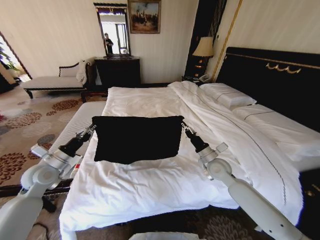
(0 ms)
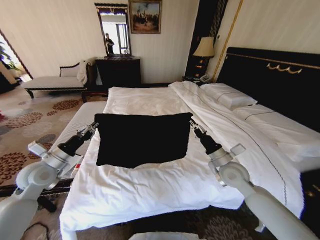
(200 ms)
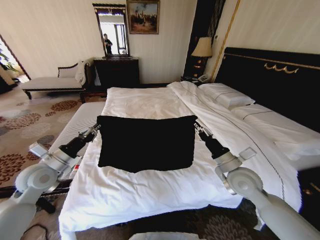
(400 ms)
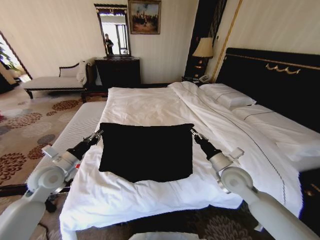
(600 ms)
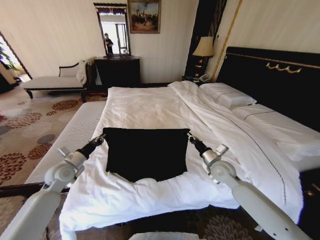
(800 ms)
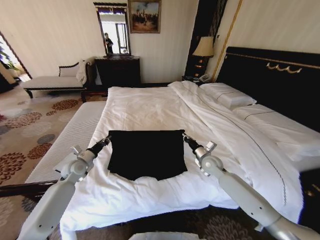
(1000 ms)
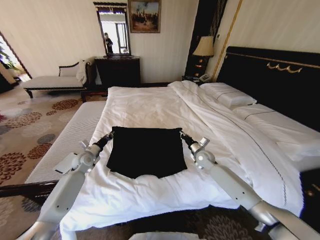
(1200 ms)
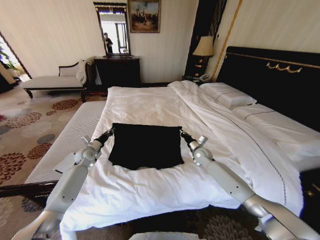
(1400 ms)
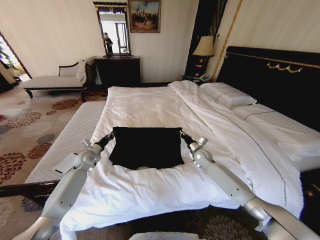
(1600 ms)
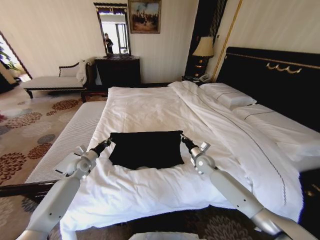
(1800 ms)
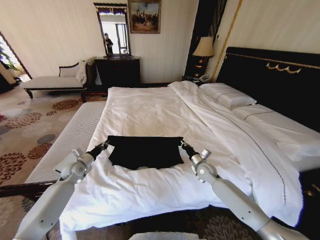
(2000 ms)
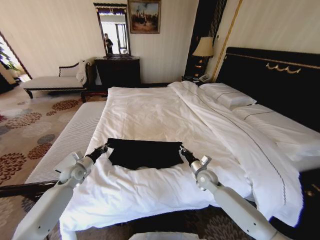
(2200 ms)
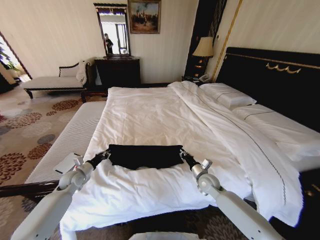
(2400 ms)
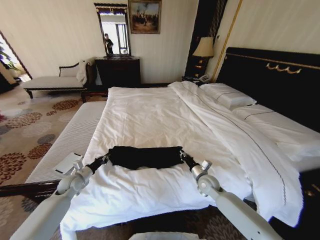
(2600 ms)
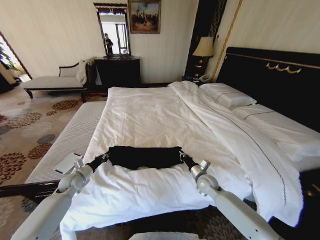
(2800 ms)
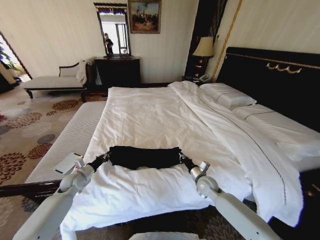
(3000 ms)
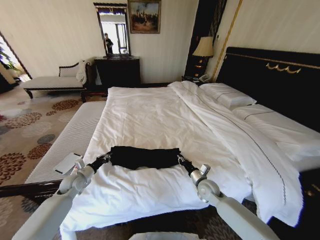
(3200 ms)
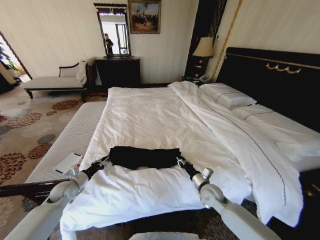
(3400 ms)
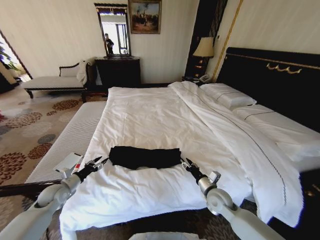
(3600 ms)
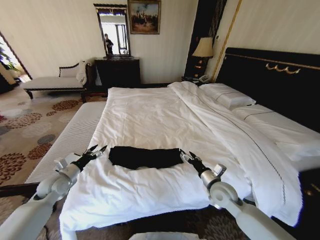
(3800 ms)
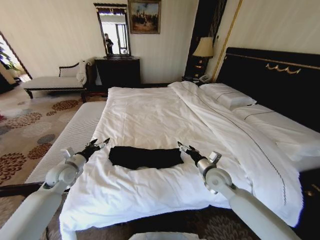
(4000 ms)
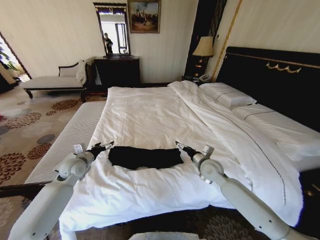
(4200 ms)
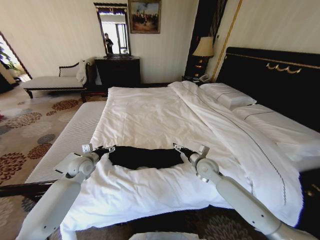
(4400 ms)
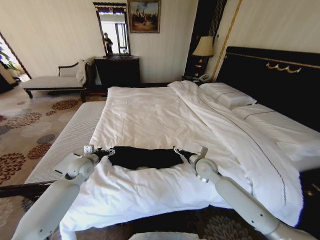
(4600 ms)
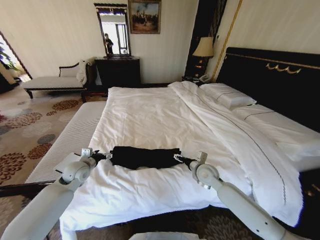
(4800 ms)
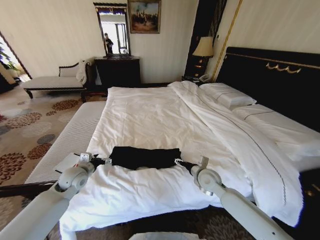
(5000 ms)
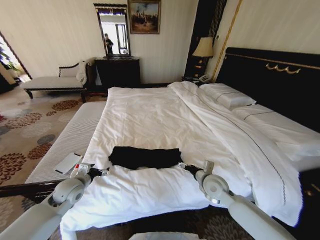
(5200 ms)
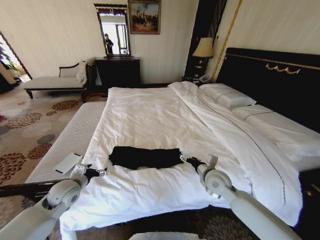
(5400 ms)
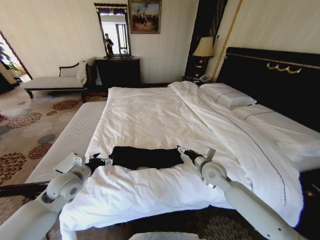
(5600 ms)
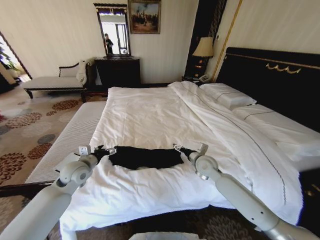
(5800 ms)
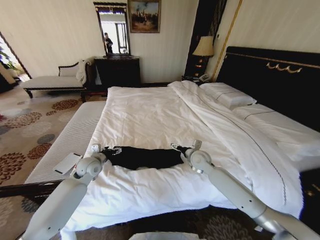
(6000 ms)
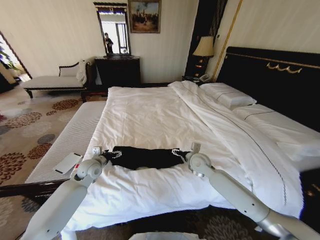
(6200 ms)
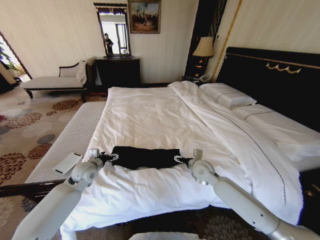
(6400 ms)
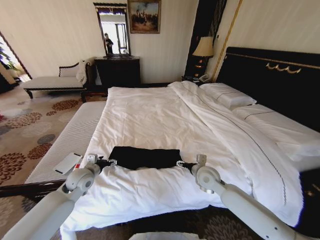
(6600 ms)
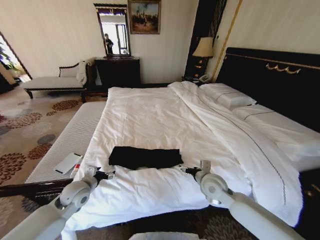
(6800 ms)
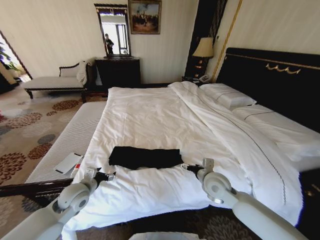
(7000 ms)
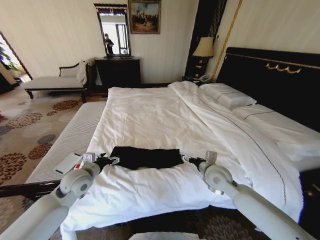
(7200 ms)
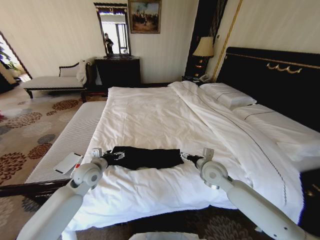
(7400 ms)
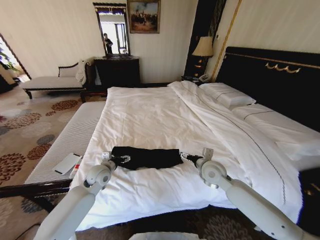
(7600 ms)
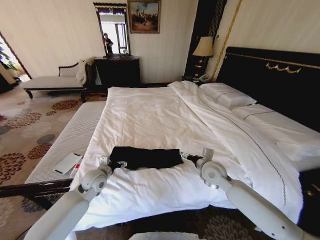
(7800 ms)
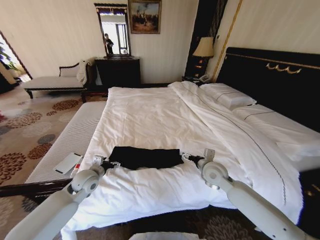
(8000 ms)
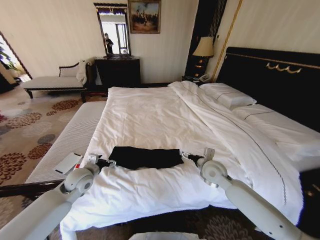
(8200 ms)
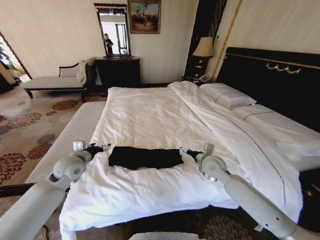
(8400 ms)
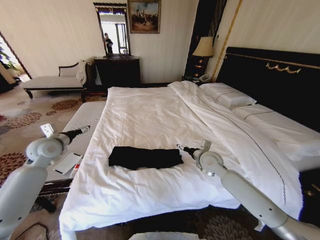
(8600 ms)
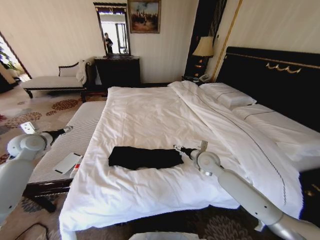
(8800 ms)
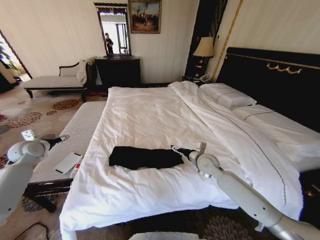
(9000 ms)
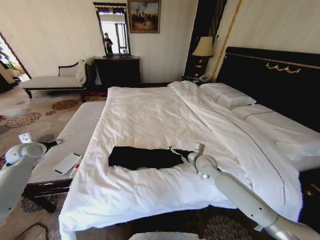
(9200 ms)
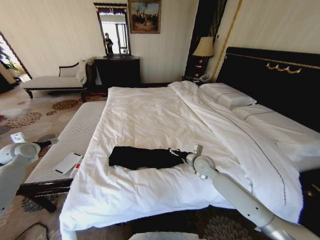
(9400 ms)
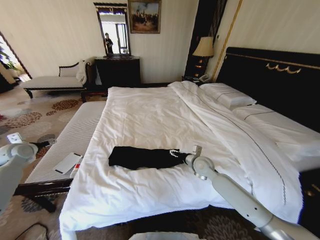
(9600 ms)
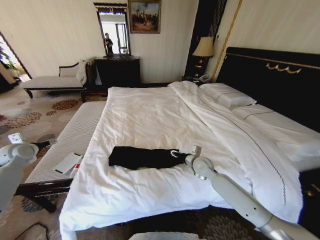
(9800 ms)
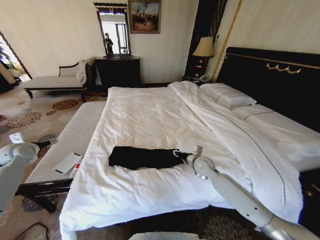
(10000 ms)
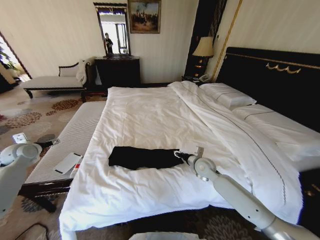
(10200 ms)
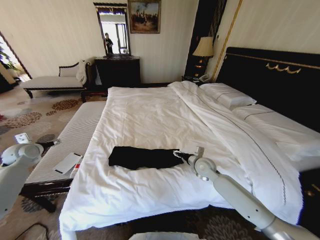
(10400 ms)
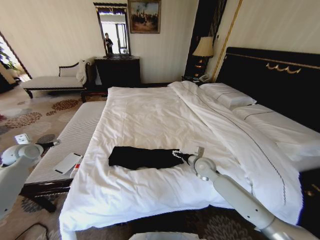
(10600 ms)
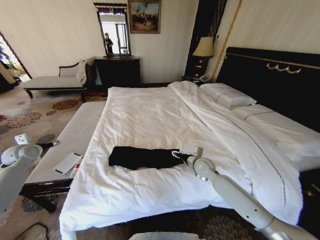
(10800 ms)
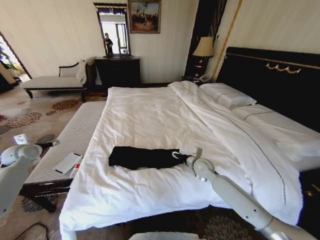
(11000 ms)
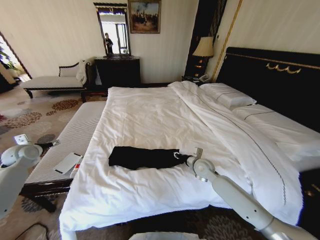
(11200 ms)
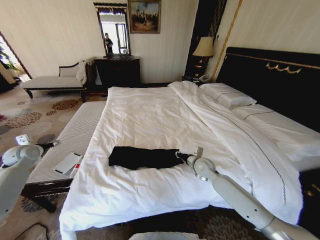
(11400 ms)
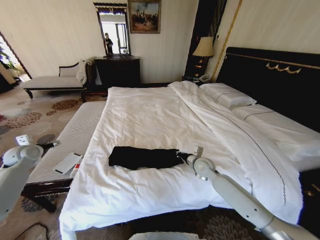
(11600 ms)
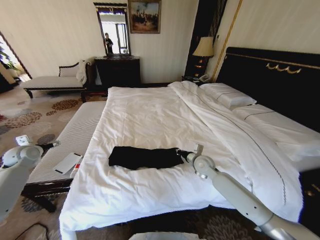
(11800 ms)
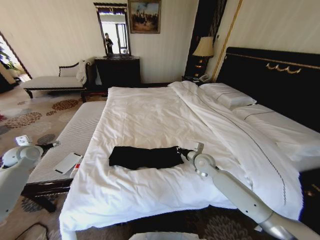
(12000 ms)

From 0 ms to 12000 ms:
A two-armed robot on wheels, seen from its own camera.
Task of the whole recording: Fold the clothes on the bed.
From 0 ms to 1600 ms: The two grippers go about 15 cm forward and downward.
From 1600 ms to 3000 ms: The grippers both shift backward by approximately 10 cm.
From 3000 ms to 4400 ms: The right gripper is displaced upward by roughly 10 cm, and opens up, while the left gripper is displaced upward and to the right by roughly 10 cm, and opens.
From 4400 ms to 6000 ms: The right gripper moves about 10 cm backward and comes back. The left gripper goes backward and returns, about 10 cm each way.
From 6000 ms to 7600 ms: The right gripper moves backward, roughly 5 cm; the left gripper goes backward and returns, roughly 10 cm each way.
From 7600 ms to 9000 ms: The left gripper is displaced to the left by roughly 30 cm; the right gripper is displaced forward by approximately 5 cm.
From 9000 ms to 10400 ms: The right gripper closes and opens again.
From 10400 ms to 12000 ms: The right gripper closes.

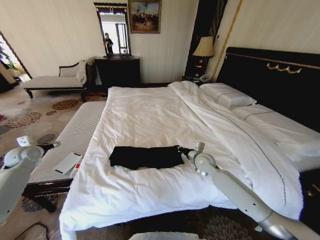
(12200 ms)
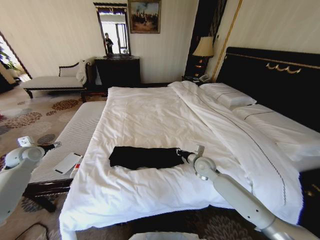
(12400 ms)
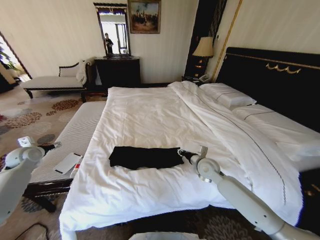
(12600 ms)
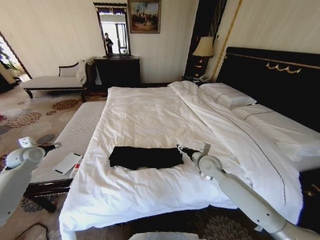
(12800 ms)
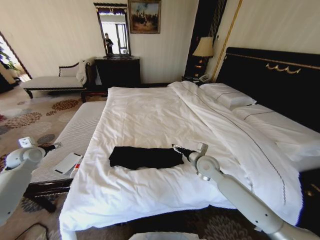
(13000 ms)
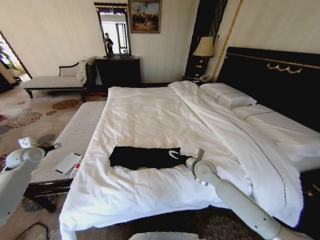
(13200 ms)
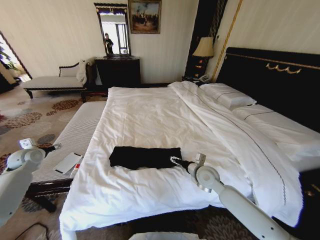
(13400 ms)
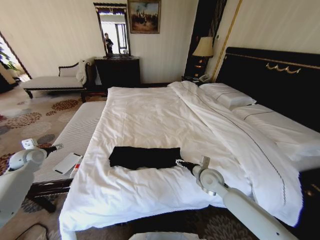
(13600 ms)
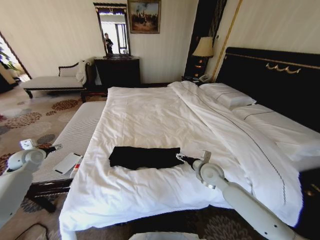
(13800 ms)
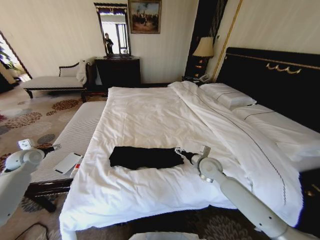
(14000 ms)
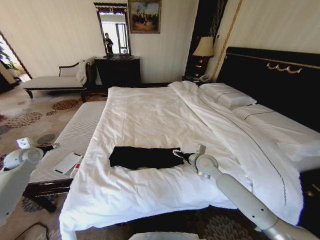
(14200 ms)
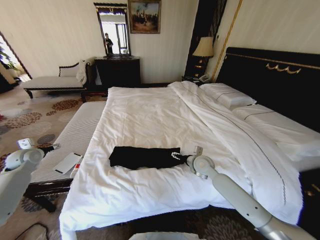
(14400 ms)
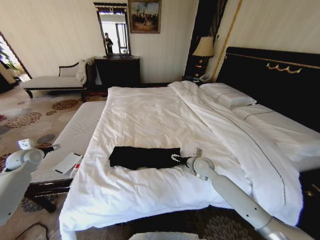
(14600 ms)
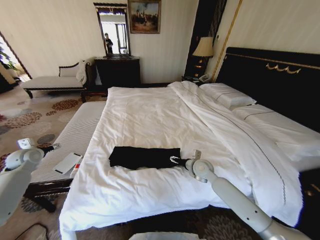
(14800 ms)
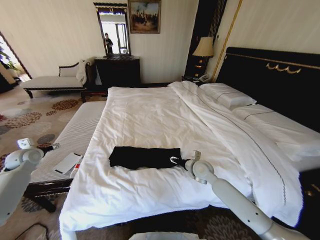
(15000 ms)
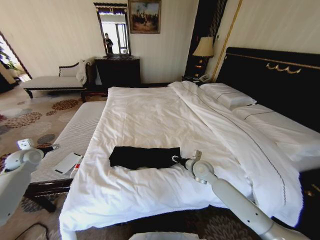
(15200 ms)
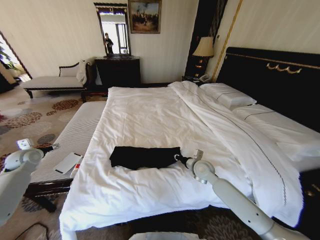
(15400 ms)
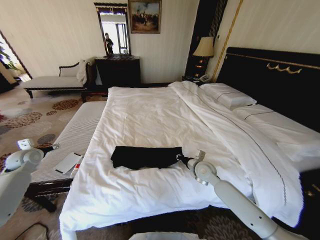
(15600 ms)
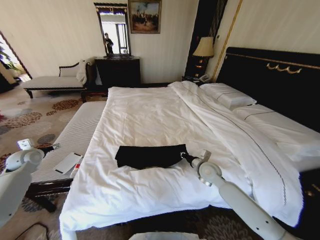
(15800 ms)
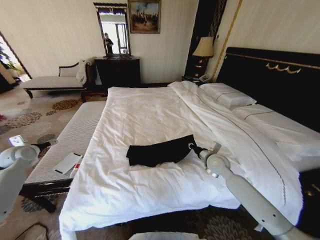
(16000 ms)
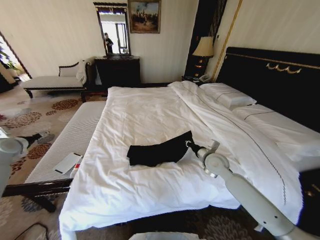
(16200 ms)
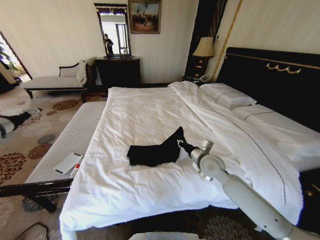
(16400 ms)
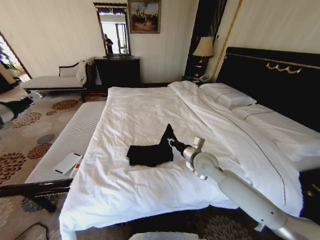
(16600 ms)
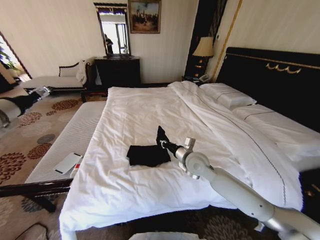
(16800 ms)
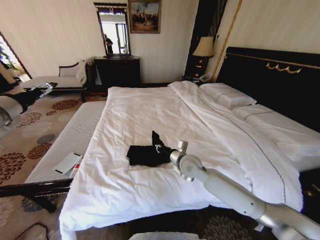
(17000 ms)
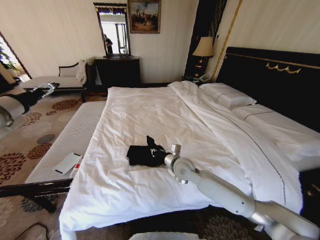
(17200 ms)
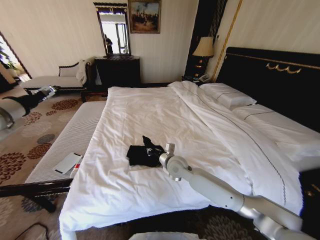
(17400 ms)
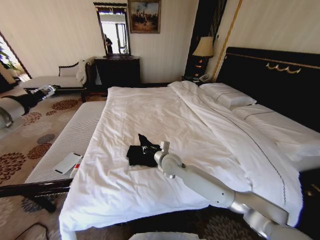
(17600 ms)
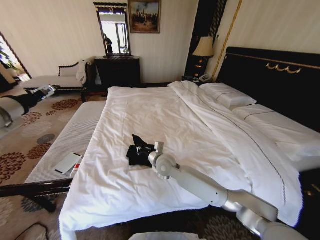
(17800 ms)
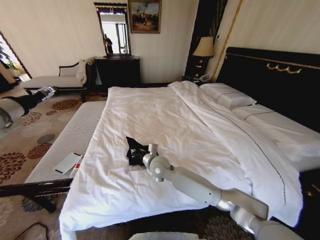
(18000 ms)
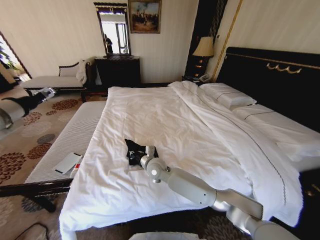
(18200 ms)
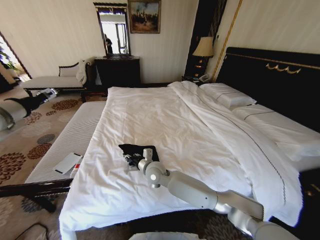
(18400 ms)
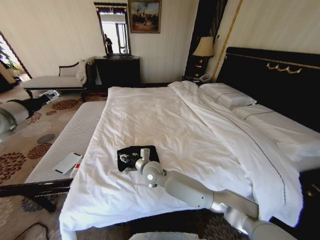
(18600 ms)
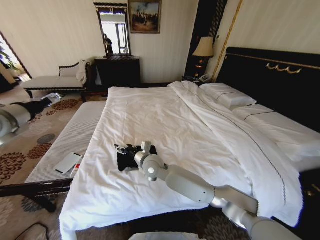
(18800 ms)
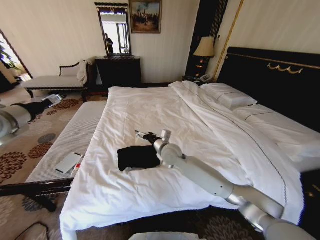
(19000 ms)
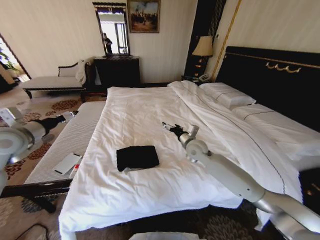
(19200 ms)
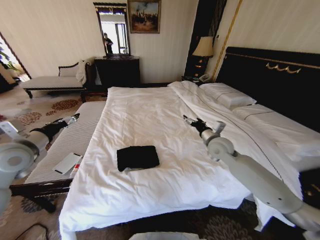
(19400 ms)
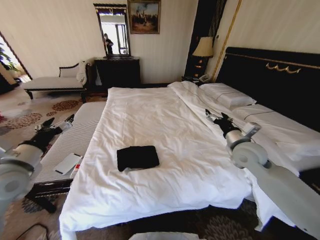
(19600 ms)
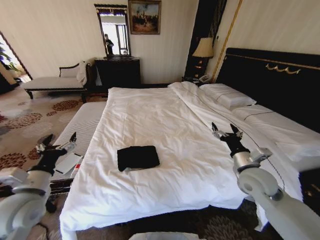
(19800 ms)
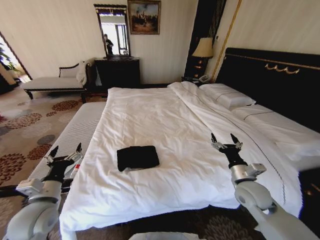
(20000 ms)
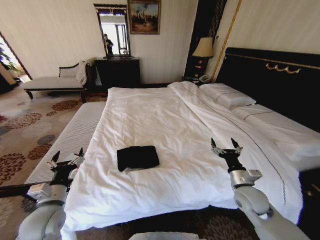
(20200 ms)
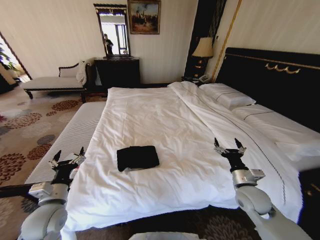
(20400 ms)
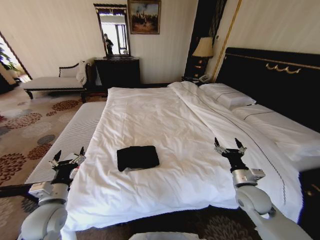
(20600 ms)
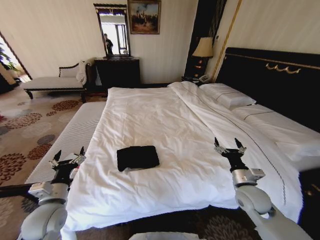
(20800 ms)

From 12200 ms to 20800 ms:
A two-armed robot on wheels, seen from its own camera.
Task of the whole recording: Fold the clothes on the bed.
From 12200 ms to 13600 ms: The right gripper travels backward by some 10 cm, and opens its fingers.
From 13600 ms to 15000 ms: The right gripper moves forward, some 5 cm.
From 15000 ms to 16600 ms: The right gripper is displaced upward by about 10 cm, and closes its fingers. The left gripper moves upward, some 20 cm.
From 16600 ms to 18000 ms: The left gripper shifts about 5 cm to the right. The right gripper moves to the left, roughly 20 cm.
From 18000 ms to 19400 ms: The left gripper shifts roughly 10 cm downward. The right gripper goes approximately 25 cm to the right, and opens its fingers.
From 19400 ms to 20800 ms: The left gripper is displaced downward, backward and to the right by some 20 cm. The right gripper goes some 20 cm backward, downward and to the right.

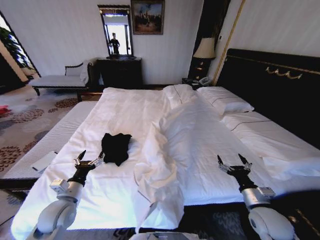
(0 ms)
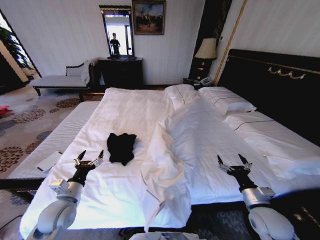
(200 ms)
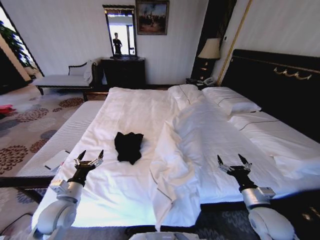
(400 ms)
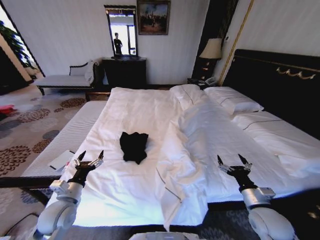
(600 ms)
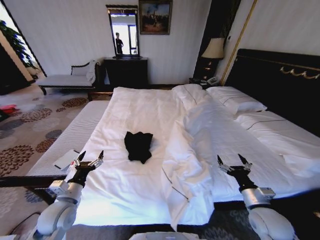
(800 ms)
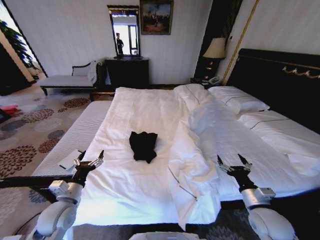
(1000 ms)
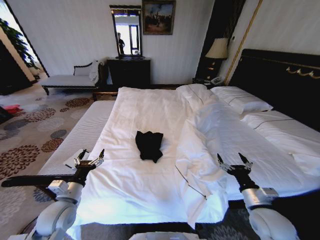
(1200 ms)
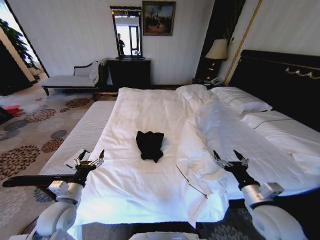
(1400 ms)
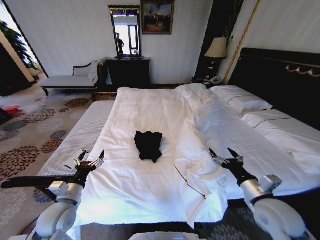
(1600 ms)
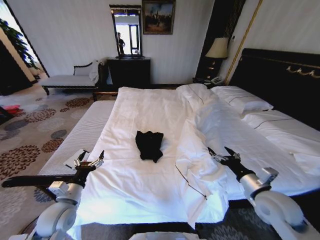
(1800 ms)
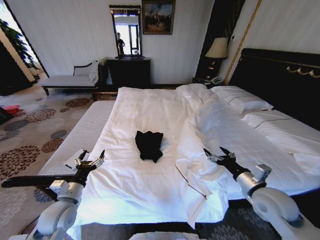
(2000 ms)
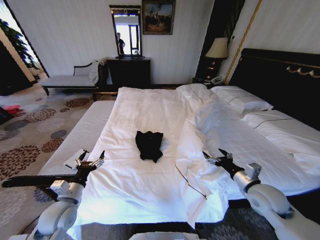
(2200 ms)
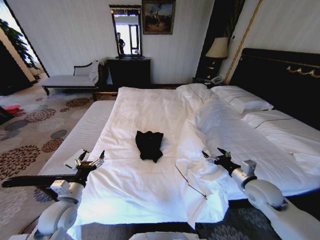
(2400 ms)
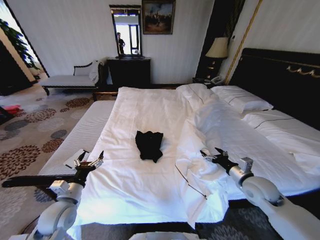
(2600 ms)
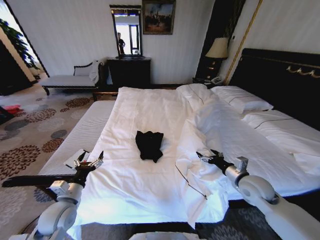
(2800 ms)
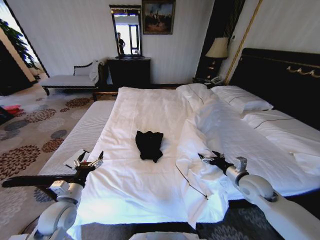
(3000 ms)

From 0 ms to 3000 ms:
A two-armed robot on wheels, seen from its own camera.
Task of the whole recording: Fold the clothes on the bed.
From 0 ms to 1600 ms: The right gripper heads upward, covering roughly 5 cm.
From 1600 ms to 3000 ms: The right gripper travels forward by some 10 cm.
